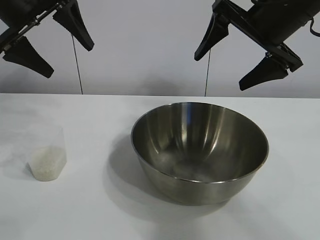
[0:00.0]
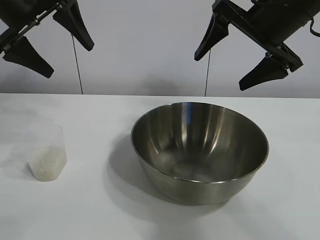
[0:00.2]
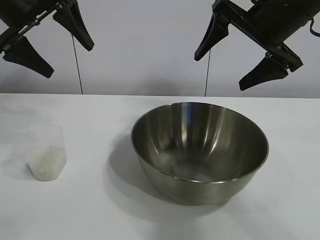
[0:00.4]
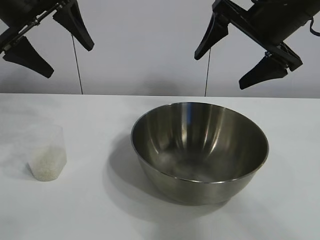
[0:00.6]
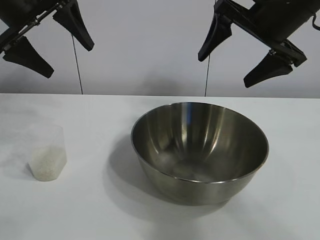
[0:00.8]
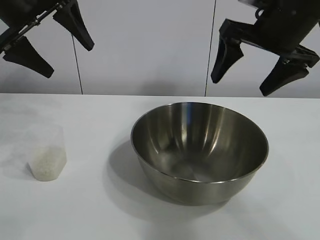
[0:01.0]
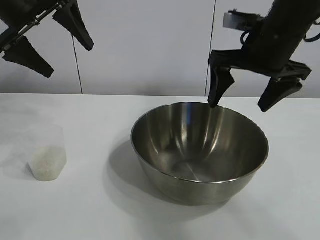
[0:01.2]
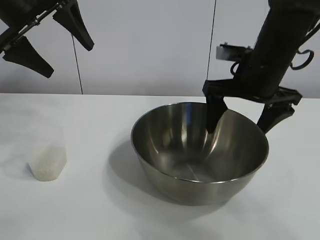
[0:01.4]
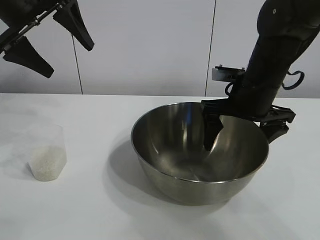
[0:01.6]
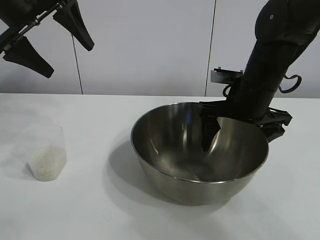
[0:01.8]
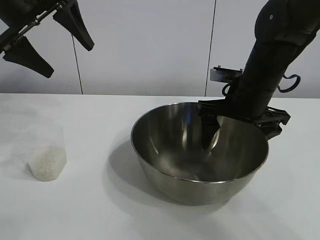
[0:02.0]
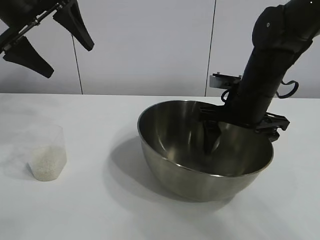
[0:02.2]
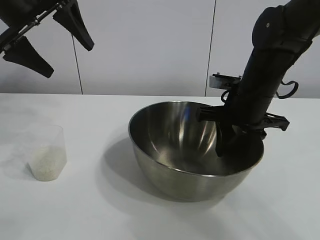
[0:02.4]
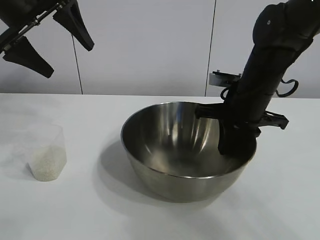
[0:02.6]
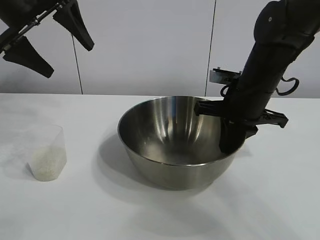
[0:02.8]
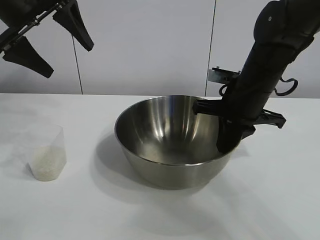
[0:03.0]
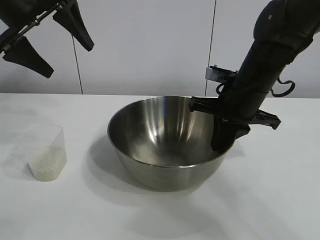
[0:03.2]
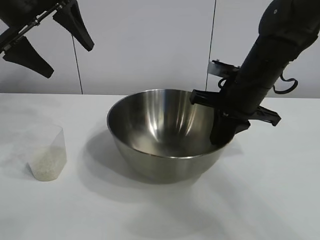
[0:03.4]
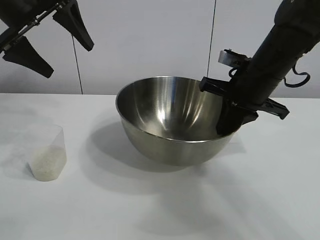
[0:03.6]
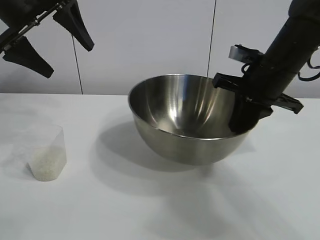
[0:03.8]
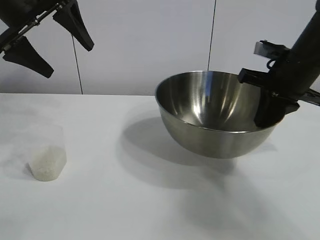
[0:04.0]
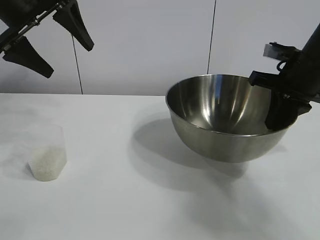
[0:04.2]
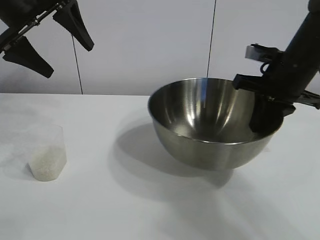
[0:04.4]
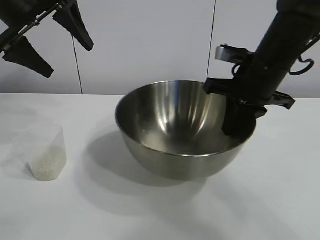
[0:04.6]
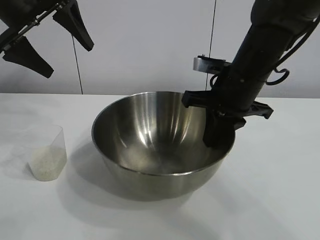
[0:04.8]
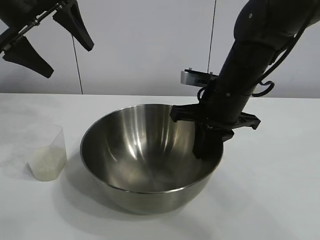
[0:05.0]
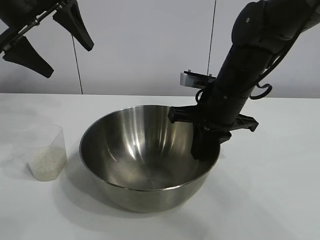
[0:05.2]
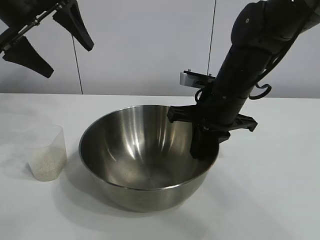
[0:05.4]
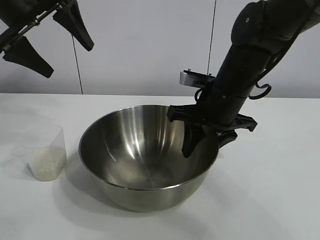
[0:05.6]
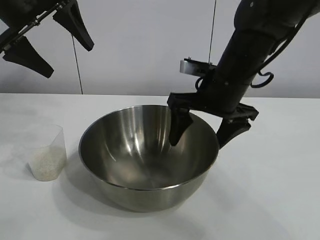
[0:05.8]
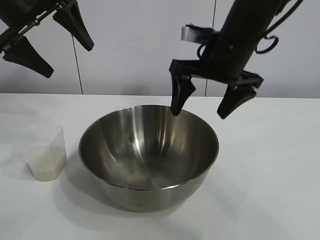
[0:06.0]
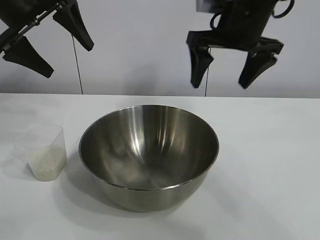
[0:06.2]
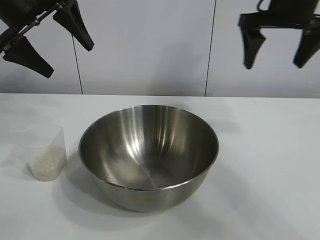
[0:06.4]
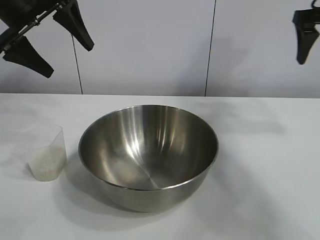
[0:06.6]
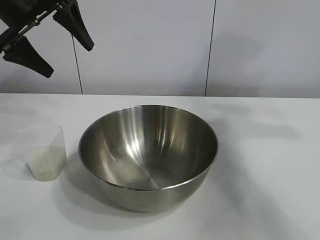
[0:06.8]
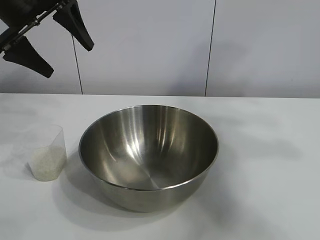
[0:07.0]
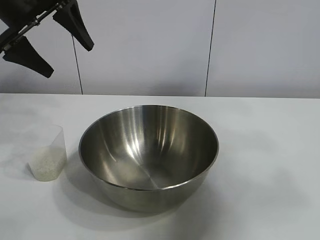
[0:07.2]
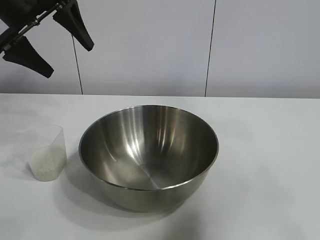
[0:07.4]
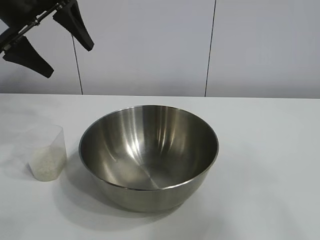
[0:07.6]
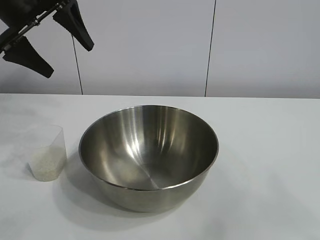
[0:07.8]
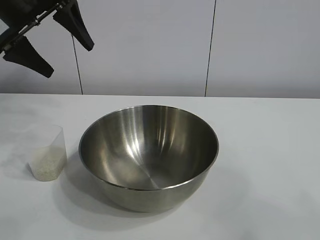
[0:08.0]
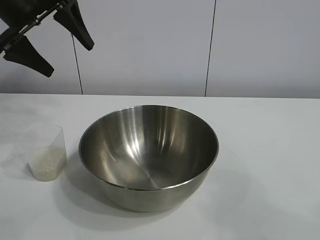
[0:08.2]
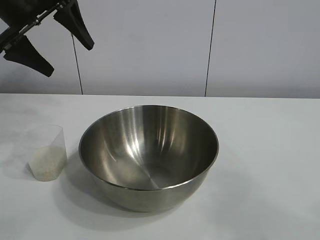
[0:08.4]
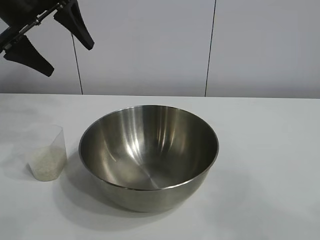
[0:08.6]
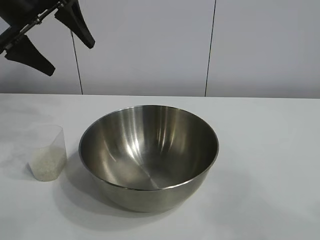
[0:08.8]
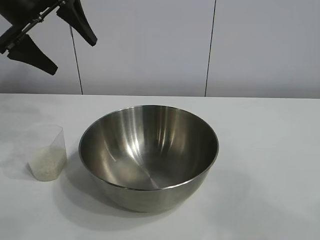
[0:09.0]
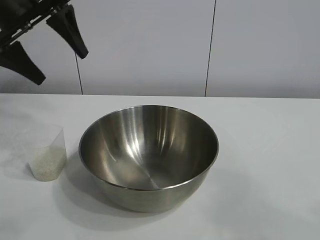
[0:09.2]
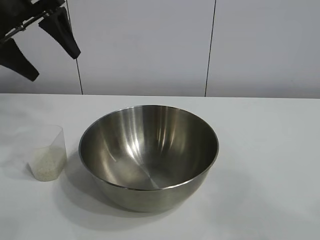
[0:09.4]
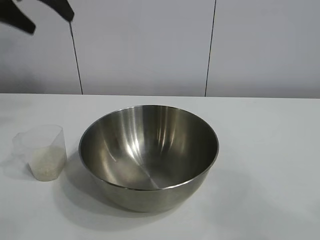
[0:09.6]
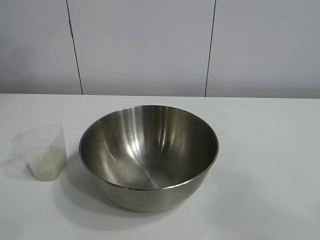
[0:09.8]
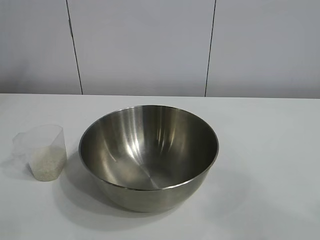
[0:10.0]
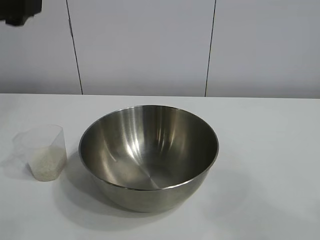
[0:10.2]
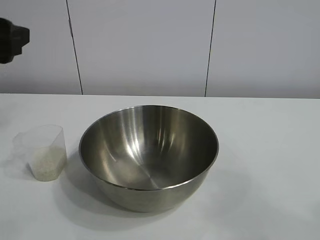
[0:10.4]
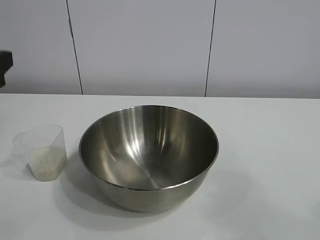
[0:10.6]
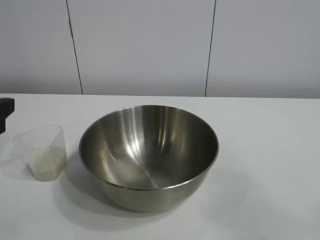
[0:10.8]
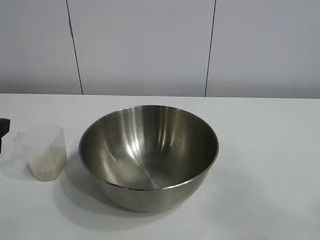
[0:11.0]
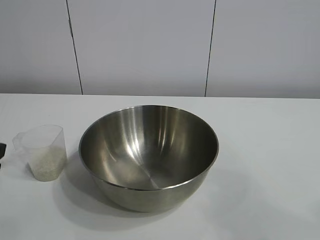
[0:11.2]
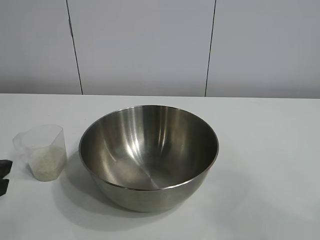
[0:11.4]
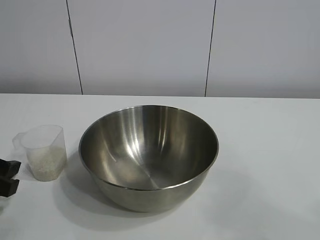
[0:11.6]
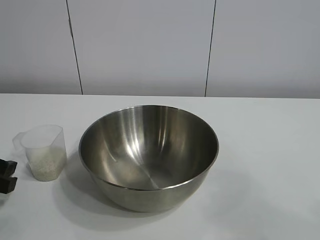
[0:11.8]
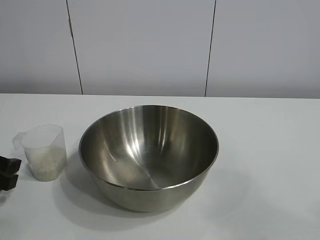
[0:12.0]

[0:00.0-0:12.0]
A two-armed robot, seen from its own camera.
Task of the whole recording: the right gripper grasp the rice container and place it in the center of the table, the left gripper grasp the rice scoop and pour the rice into the rice container.
Step, 0:00.8 to 0:05.6: Move the bowl in the center of view with right gripper.

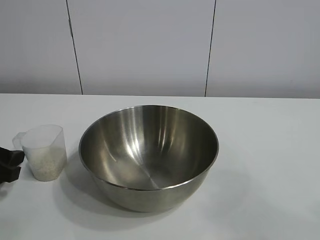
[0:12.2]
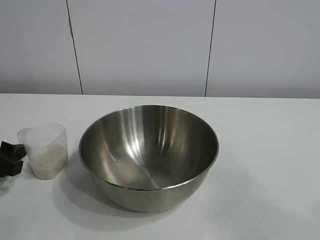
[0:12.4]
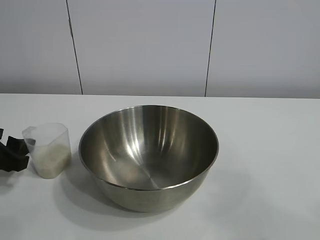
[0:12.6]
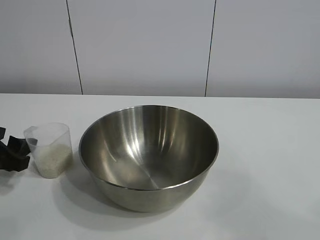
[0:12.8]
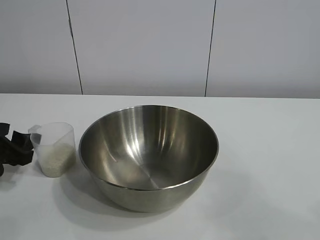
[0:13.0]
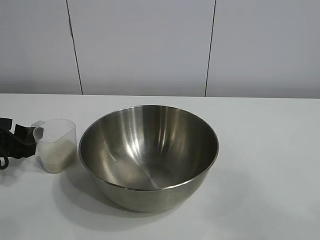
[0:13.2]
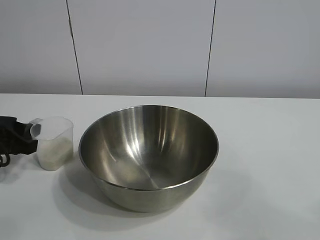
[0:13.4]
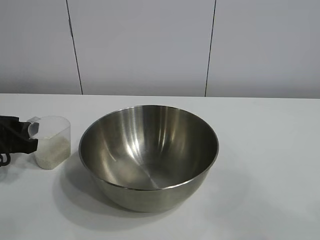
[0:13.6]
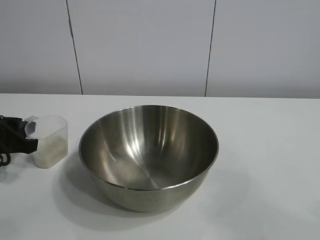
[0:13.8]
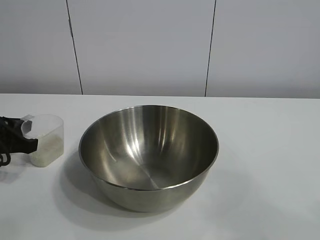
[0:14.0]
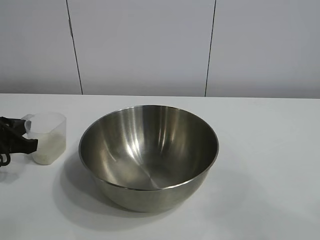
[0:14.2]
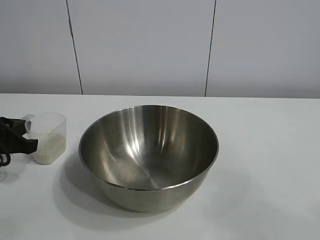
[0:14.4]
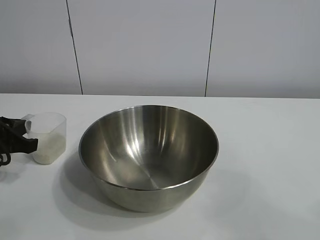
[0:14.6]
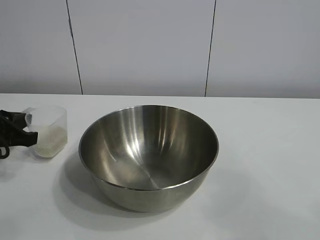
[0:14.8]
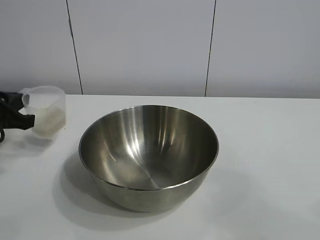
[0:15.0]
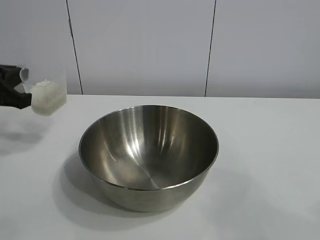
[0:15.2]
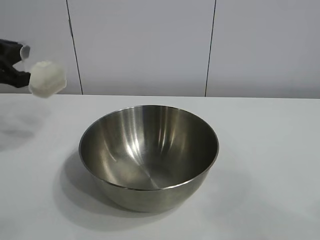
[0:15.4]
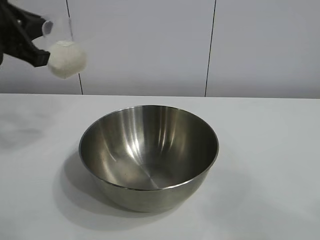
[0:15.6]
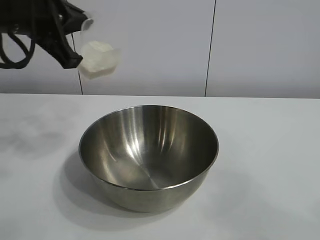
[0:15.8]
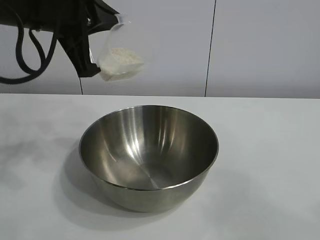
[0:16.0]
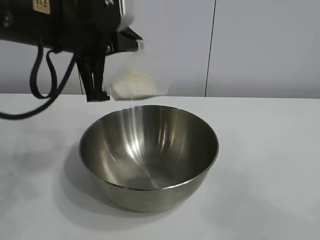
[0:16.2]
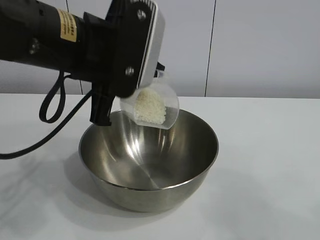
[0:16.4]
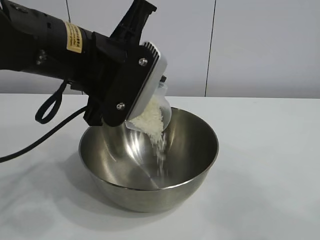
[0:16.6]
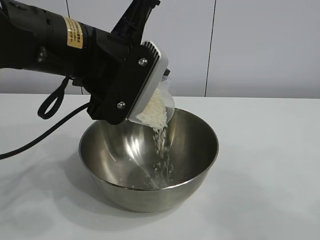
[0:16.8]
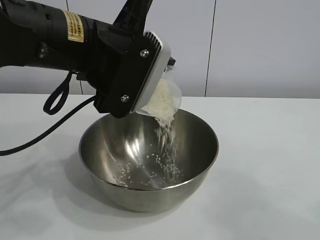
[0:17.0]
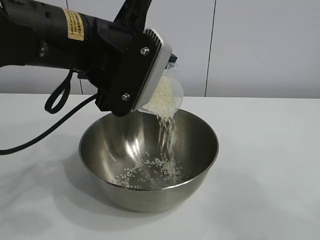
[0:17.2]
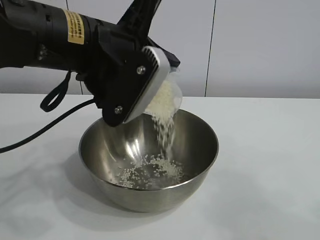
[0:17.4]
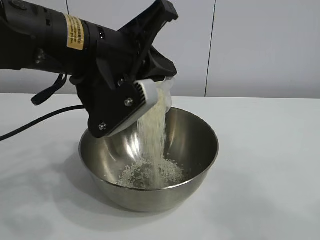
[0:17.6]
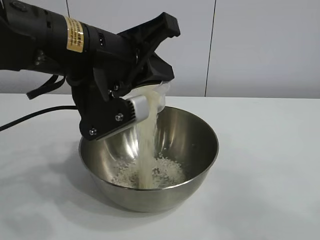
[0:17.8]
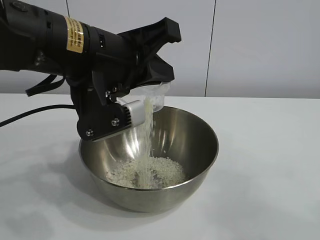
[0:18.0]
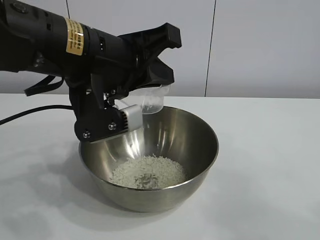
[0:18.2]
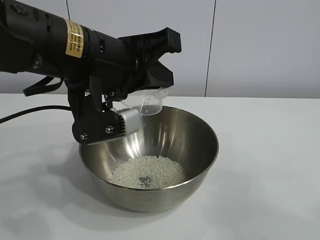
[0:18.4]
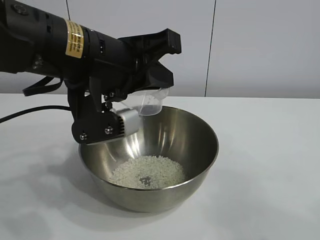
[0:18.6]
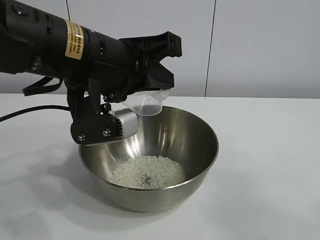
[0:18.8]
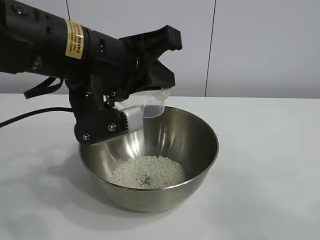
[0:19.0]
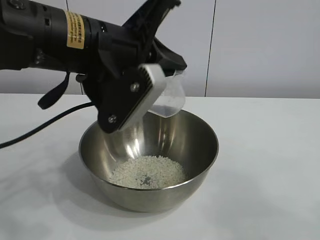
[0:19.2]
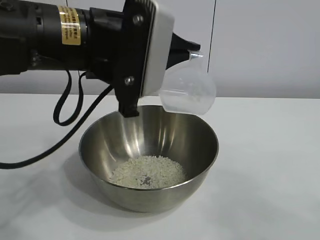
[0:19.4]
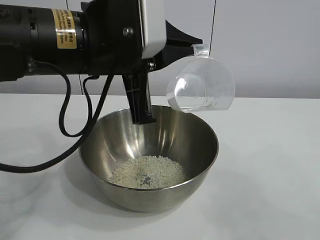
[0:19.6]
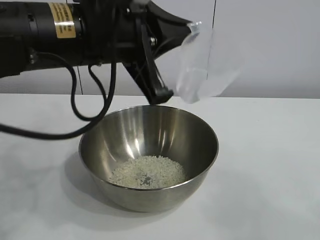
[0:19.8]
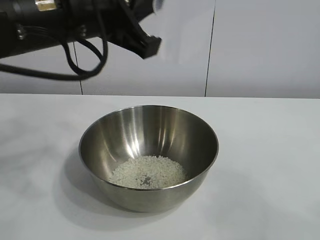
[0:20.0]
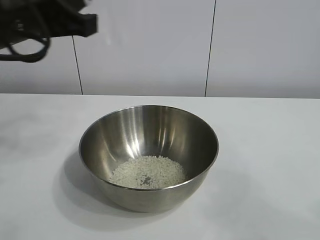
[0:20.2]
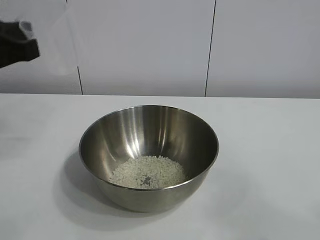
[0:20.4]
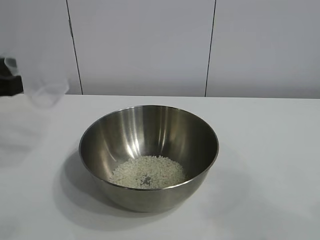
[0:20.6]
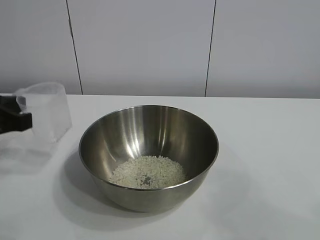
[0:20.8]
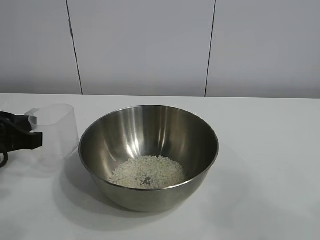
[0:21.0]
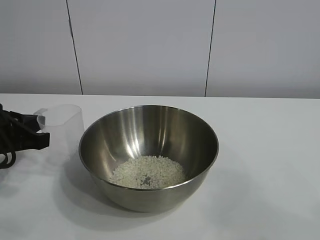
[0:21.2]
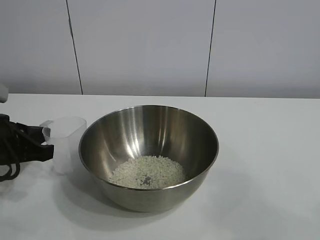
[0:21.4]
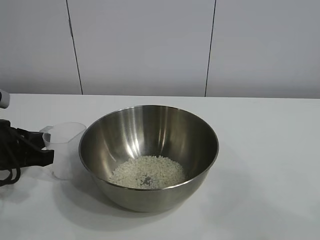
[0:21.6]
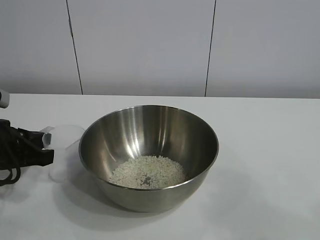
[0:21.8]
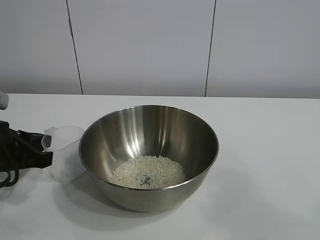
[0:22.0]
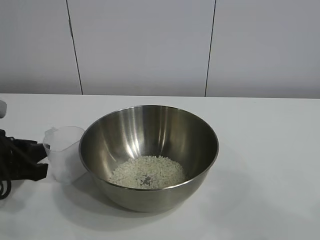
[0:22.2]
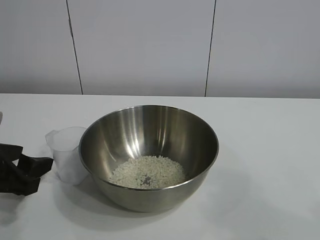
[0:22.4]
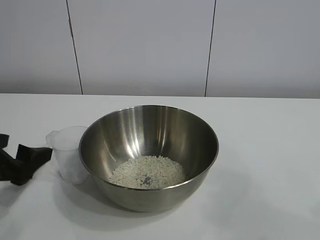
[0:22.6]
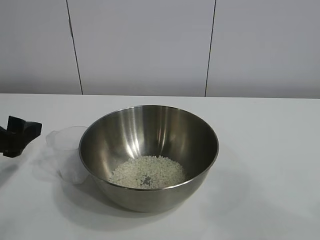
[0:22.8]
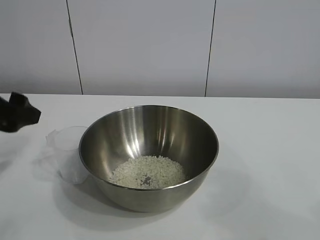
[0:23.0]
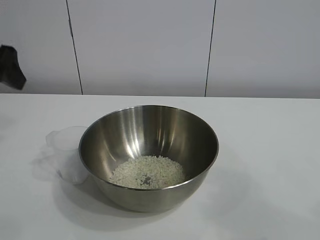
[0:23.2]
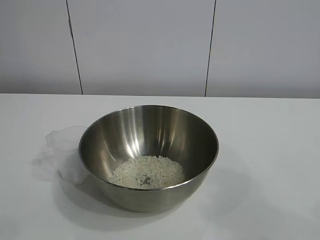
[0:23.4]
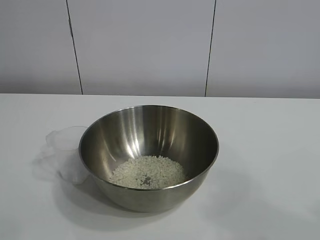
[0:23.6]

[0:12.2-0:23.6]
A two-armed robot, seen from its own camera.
Task of the whole recording: the right gripper grasp the rice container and place it in the center of the table, the left gripper grasp the rice scoop and pour the rice into the rice container.
Step, 0:14.2 to 0:18.4: Pour the rice from the cup into the bowl with the left gripper.
Step, 0:18.6 to 0:22.0: Place the cup on the table with the left gripper.
